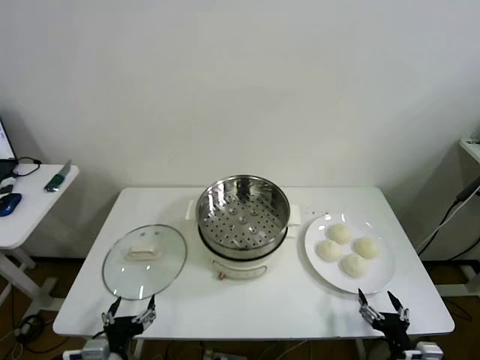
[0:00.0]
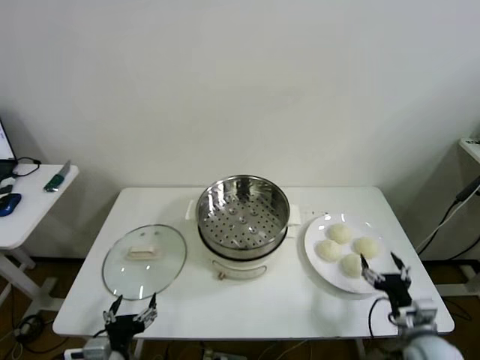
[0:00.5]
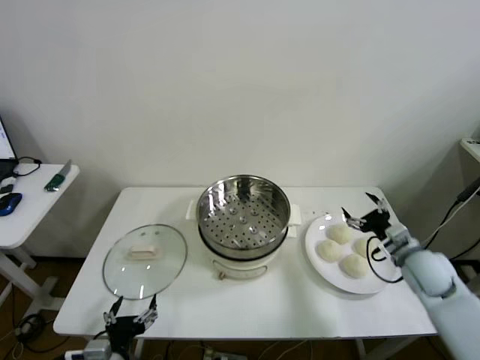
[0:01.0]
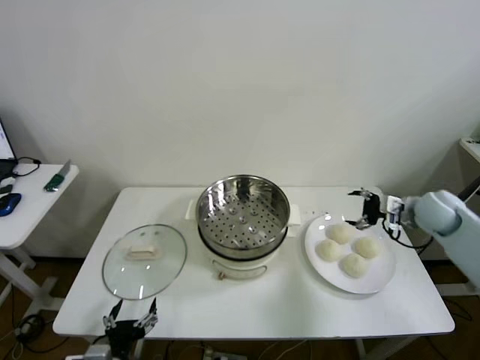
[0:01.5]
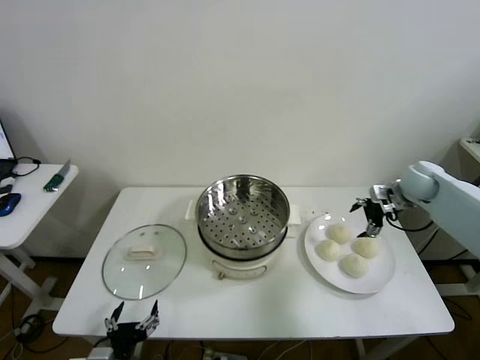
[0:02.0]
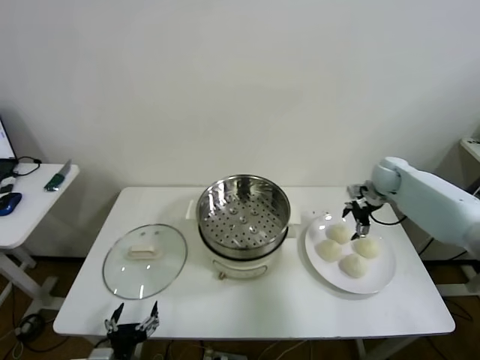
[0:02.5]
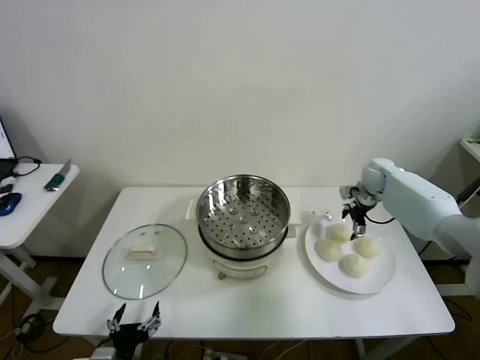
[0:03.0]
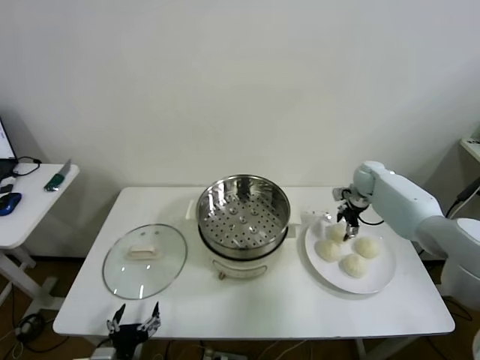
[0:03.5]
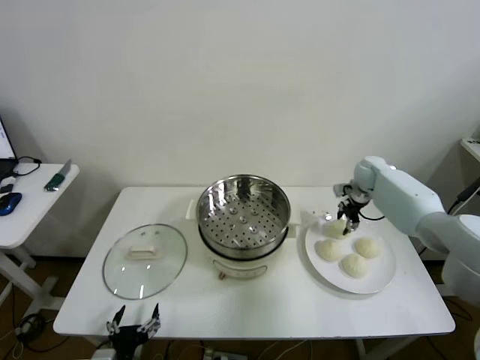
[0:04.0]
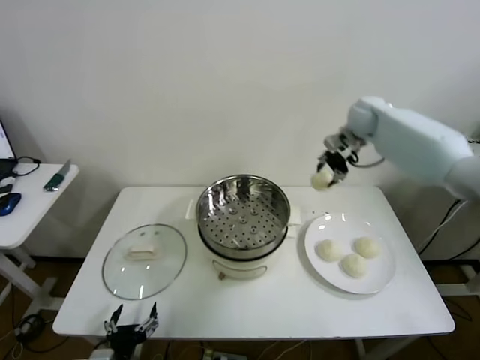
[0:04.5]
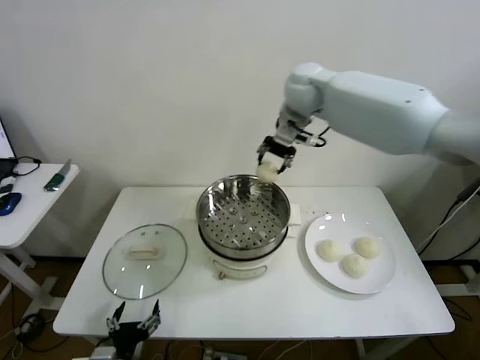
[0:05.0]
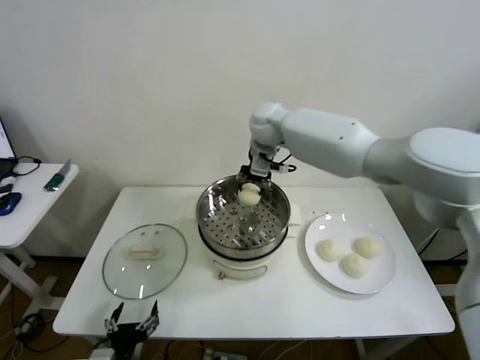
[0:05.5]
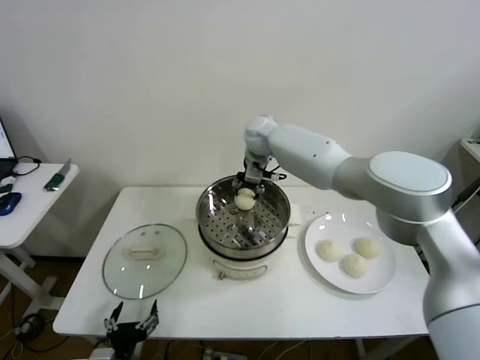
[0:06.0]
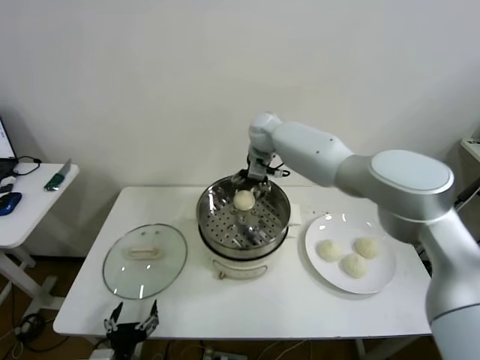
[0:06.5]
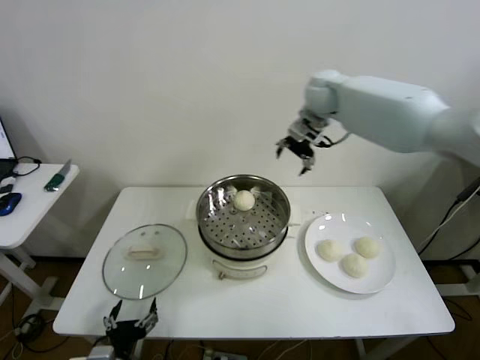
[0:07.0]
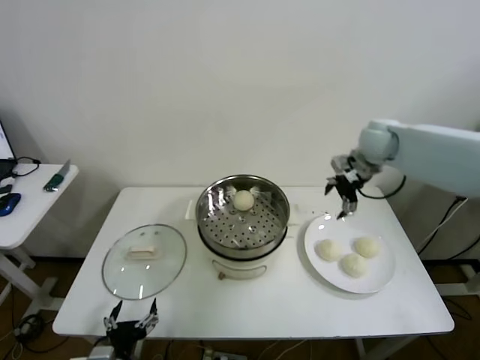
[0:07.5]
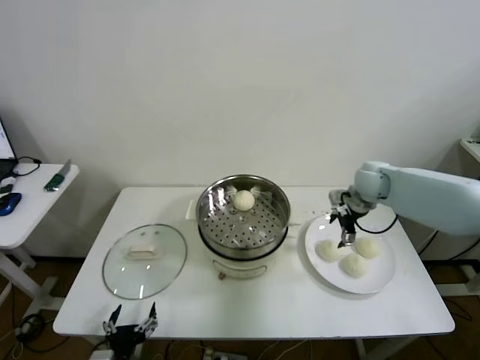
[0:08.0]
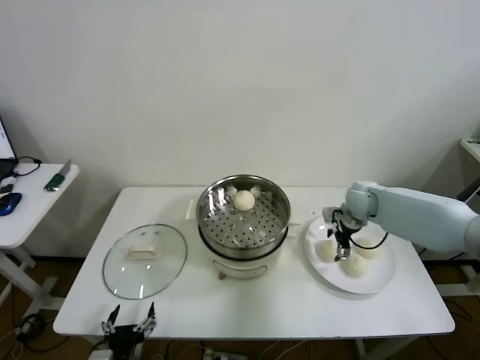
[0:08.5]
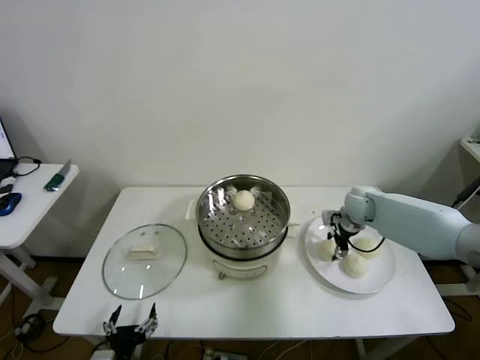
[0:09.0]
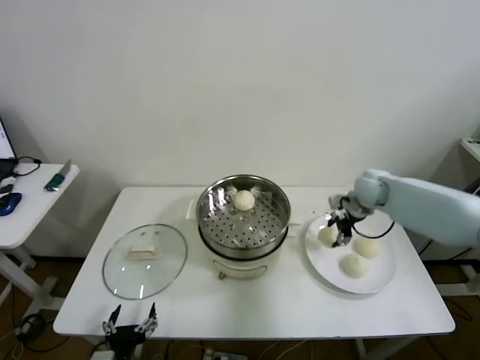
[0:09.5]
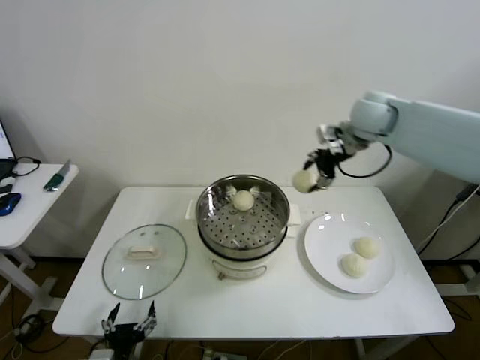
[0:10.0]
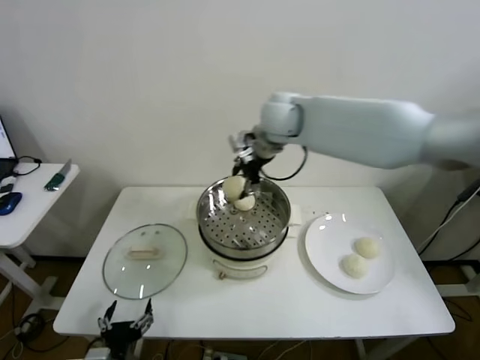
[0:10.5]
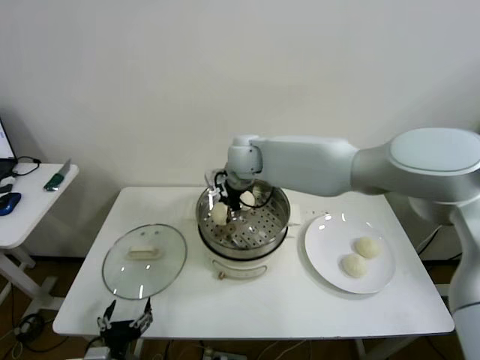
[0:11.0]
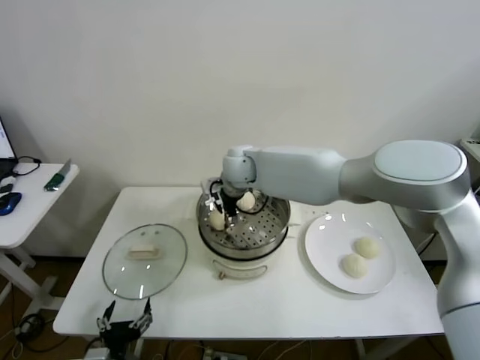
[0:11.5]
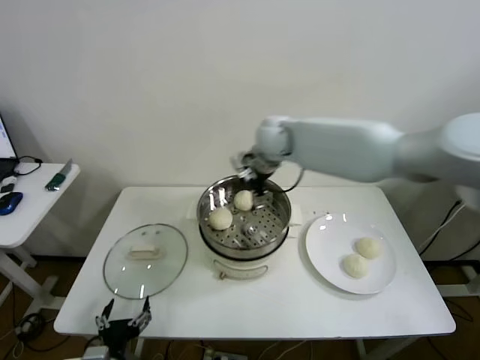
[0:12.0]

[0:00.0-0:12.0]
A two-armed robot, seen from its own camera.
Step, 0:00.0 to 0:03.5: Grasp the baozi in the plate with right gripper.
Step, 0:04.0 to 0:06.0: Place the baozi on the steamer with right gripper.
Step, 0:07.0 to 0:09.0: Grasp the baozi in the plate with right gripper.
Step, 0:09.5 to 0:11.5: Place the baozi on the steamer with right gripper.
0:02.0 to 0:04.0: The right gripper heads forward and to the left, covering approximately 10 cm, and closes up.
0:04.0 to 0:06.0: The right gripper travels to the left by about 30 cm.
0:06.0 to 0:08.0: The right gripper goes approximately 25 cm to the right, and opens up.
0:08.0 to 0:10.0: The right gripper moves upward, approximately 20 cm, and closes up.
0:10.0 to 0:12.0: The right gripper moves to the left and downward, approximately 15 cm, and opens its fingers.

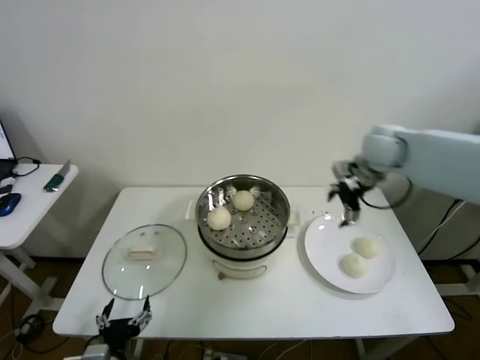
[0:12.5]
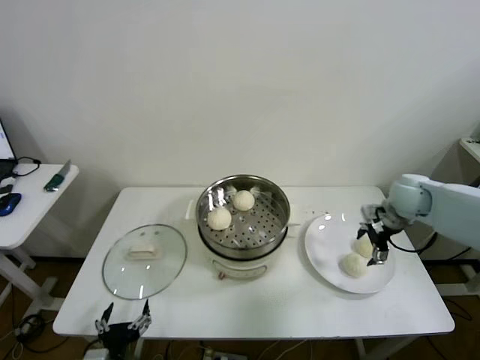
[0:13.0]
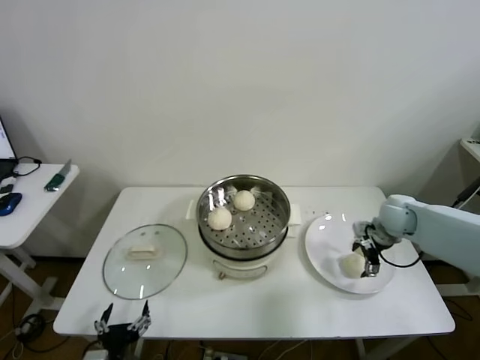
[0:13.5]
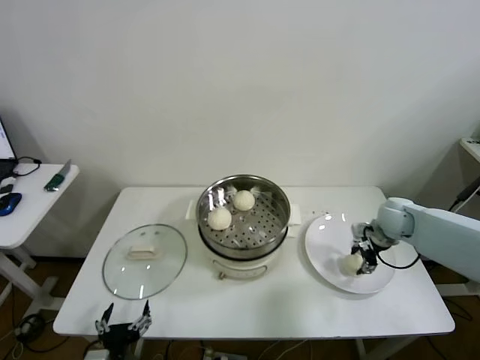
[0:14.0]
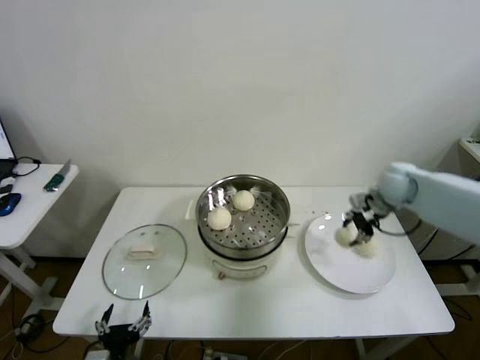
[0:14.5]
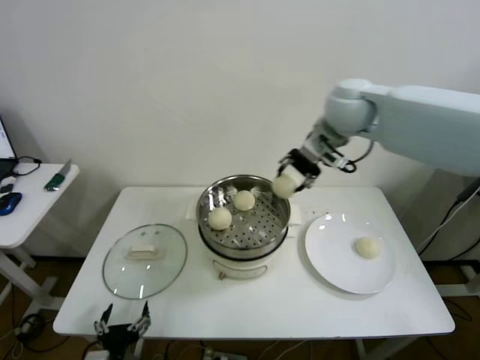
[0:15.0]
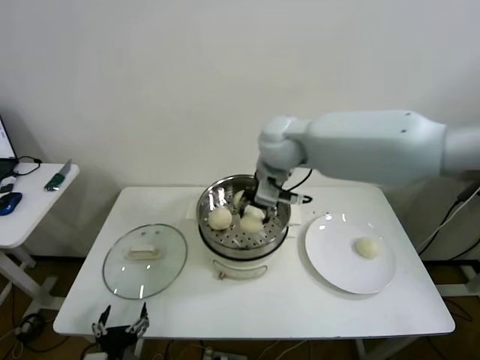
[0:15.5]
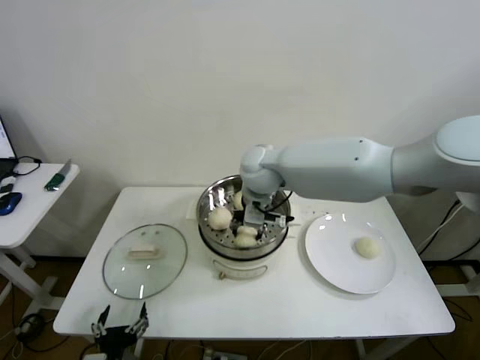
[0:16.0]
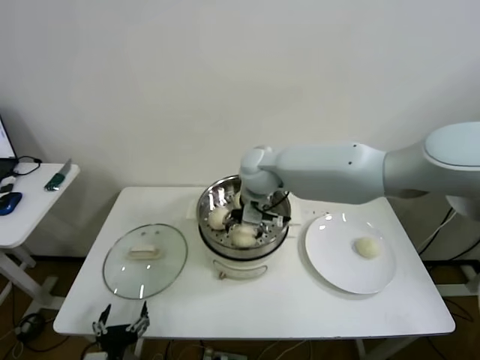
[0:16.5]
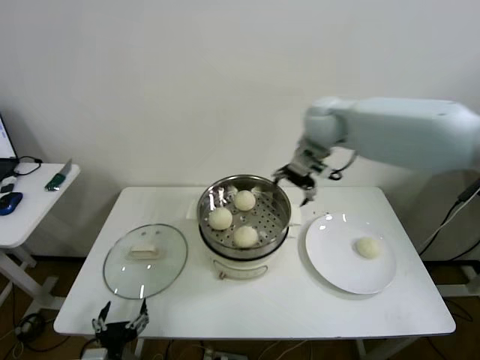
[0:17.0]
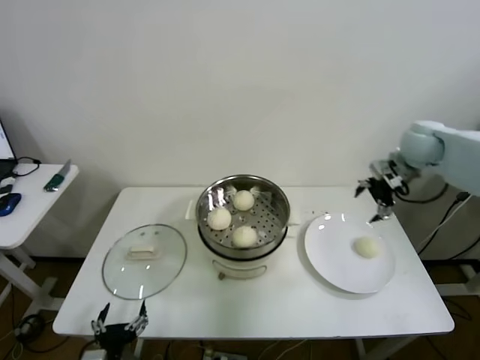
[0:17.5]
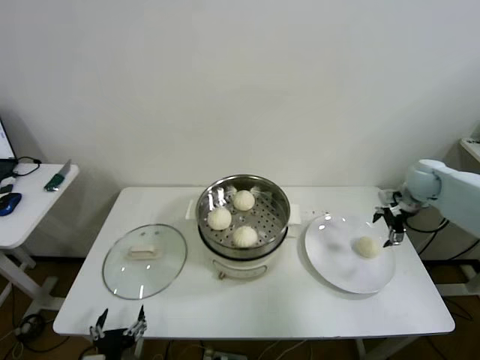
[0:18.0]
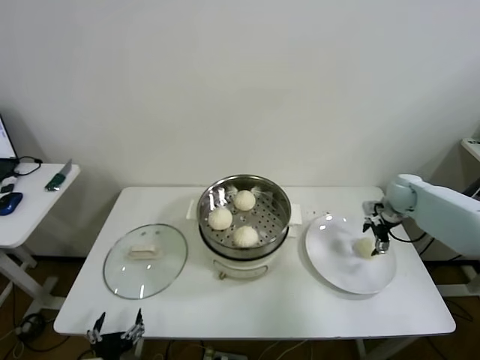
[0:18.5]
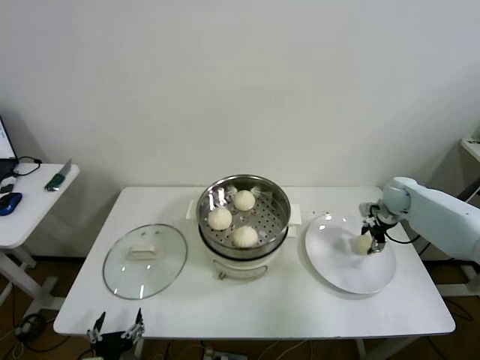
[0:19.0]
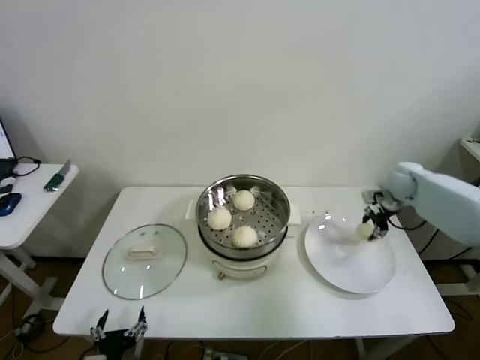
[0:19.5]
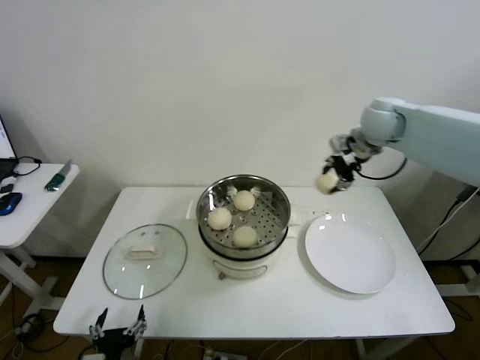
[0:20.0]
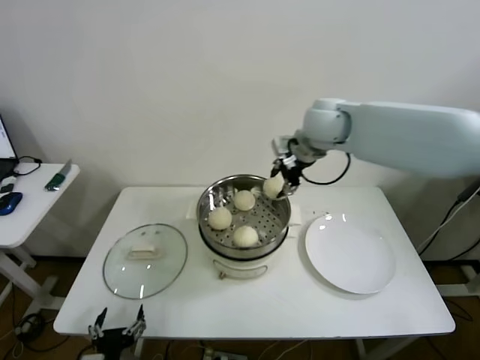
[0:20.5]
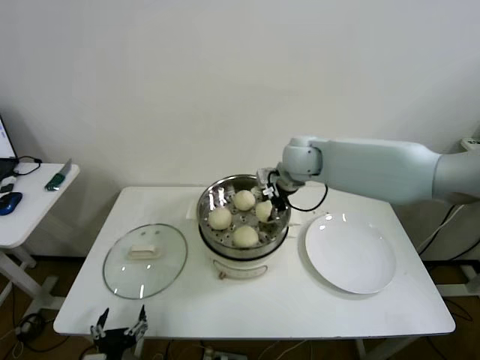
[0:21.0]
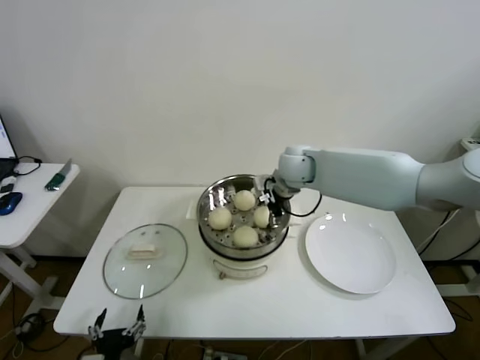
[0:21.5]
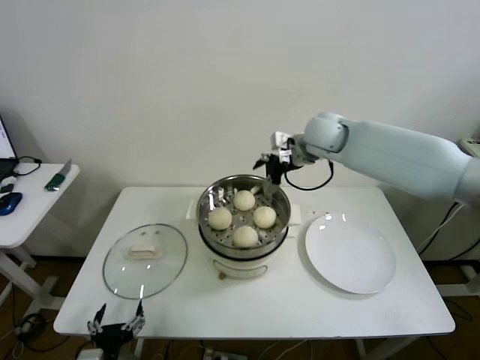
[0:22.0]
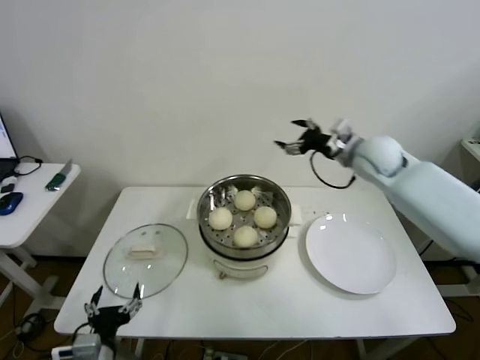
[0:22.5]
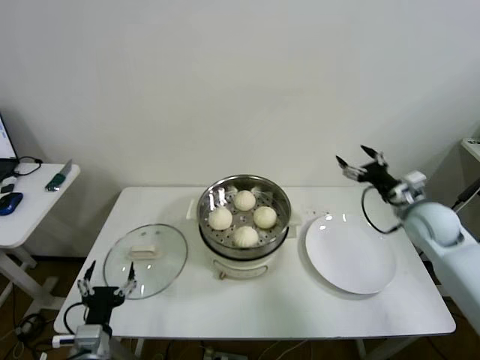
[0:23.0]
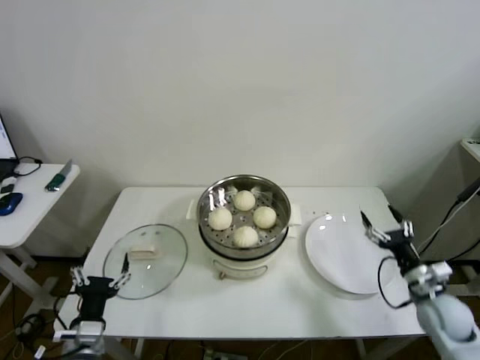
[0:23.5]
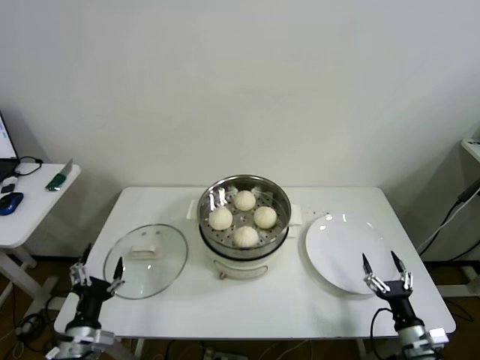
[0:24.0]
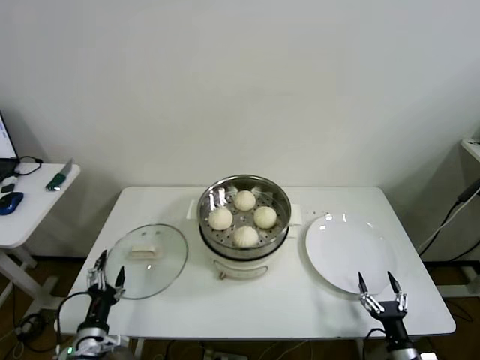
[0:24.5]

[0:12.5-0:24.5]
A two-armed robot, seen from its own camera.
Step, 0:14.5 to 0:16.0: Place the baozi on the steamer with right gripper.
Step, 0:16.5 to 0:18.5: Grasp the baozi in the plate with right gripper.
Step, 0:19.5 to 0:21.5: Place the baozi on the steamer with right gripper.
0:12.5 to 0:14.5: The right gripper goes downward and returns, some 15 cm each way, and closes its fingers.
0:14.5 to 0:16.5: The right gripper is displaced to the left by some 30 cm, and opens.
0:16.5 to 0:18.5: The right gripper is displaced to the right by approximately 40 cm.
0:18.5 to 0:20.5: The right gripper goes approximately 35 cm to the left and upward, and closes up.
0:20.5 to 0:22.5: The right gripper goes approximately 15 cm to the right and downward, and opens its fingers.
0:22.5 to 0:24.5: The left gripper moves downward and to the left, about 10 cm; the right gripper goes some 50 cm downward and backward.

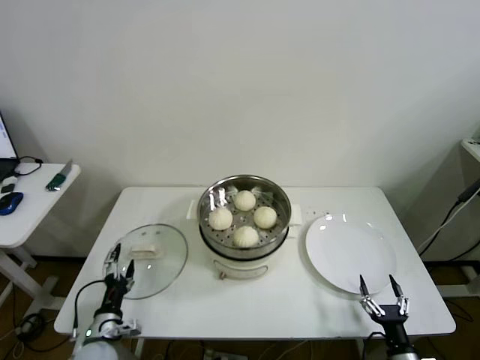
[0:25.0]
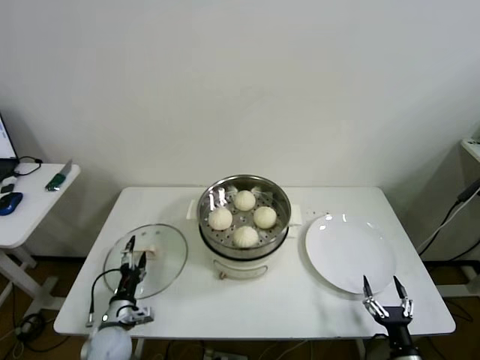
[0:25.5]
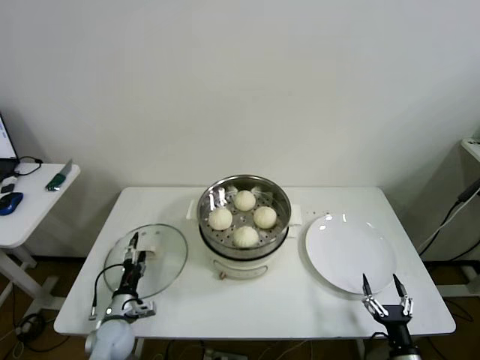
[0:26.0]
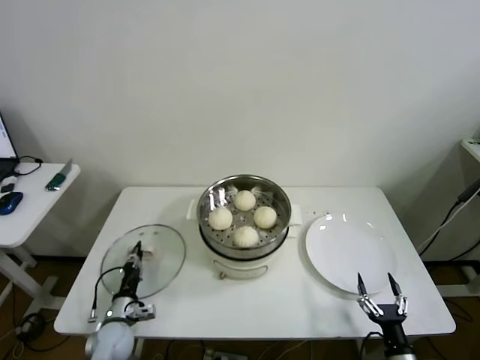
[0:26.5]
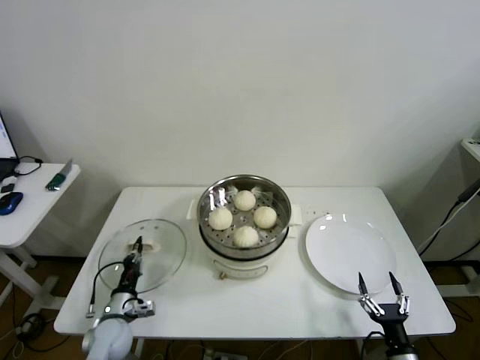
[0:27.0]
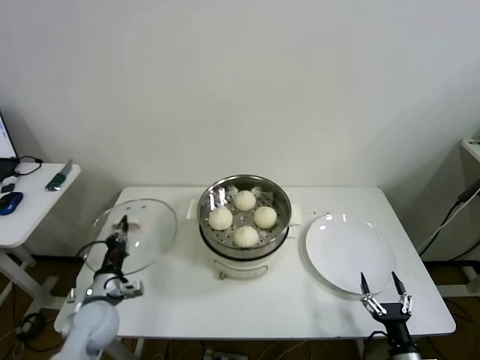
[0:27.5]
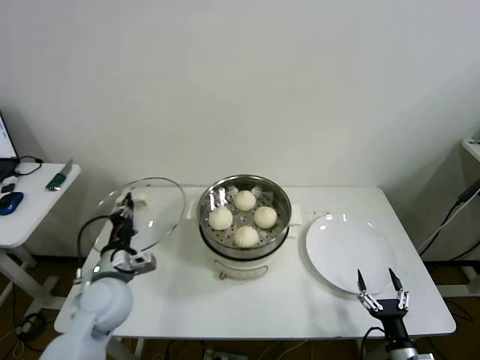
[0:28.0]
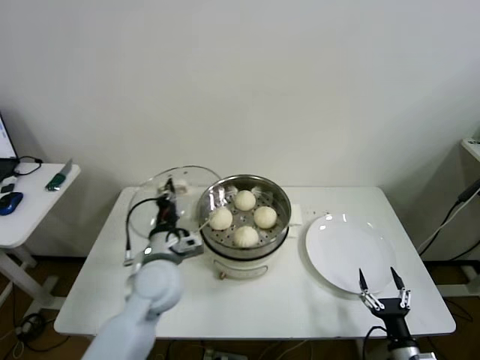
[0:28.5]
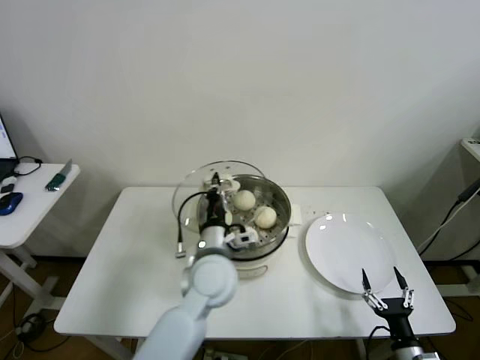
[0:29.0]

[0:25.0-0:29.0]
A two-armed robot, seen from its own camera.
0:25.0 to 0:27.0: The left gripper is displaced forward by approximately 5 cm, and closes its fingers.
0:27.0 to 0:29.0: The left gripper travels to the right and upward by approximately 35 cm.
